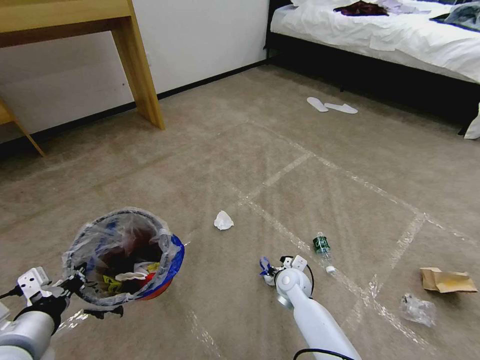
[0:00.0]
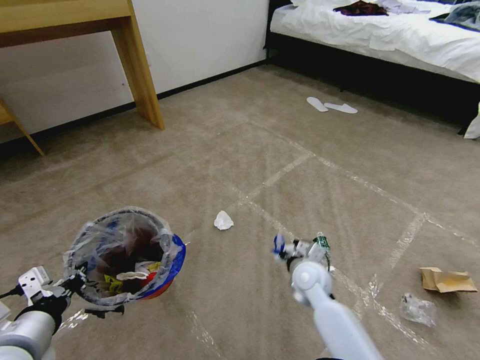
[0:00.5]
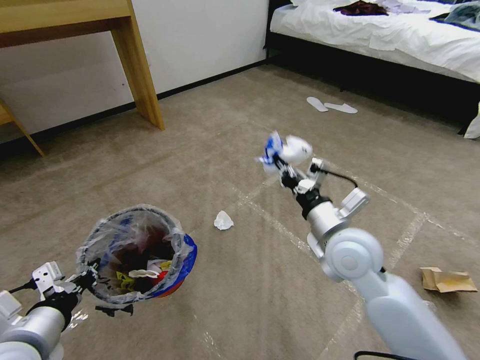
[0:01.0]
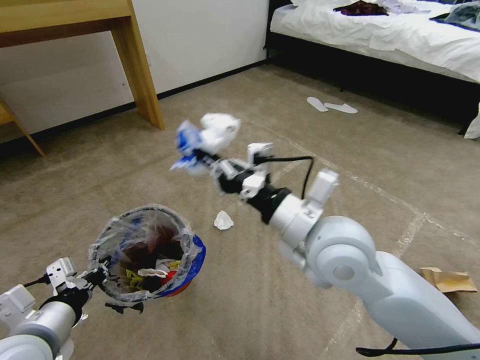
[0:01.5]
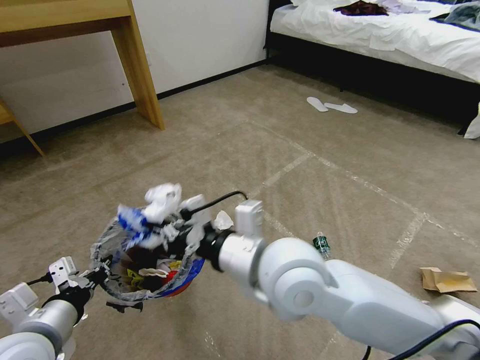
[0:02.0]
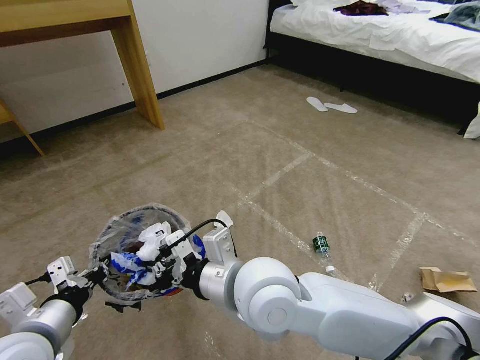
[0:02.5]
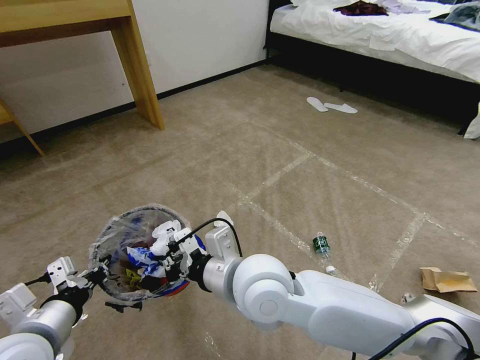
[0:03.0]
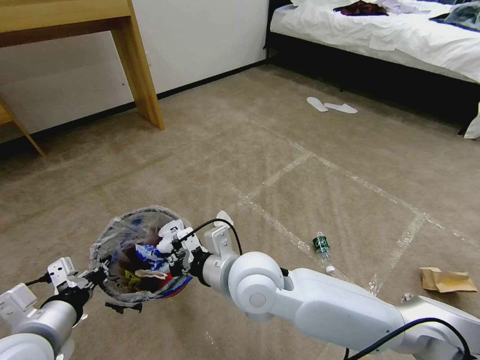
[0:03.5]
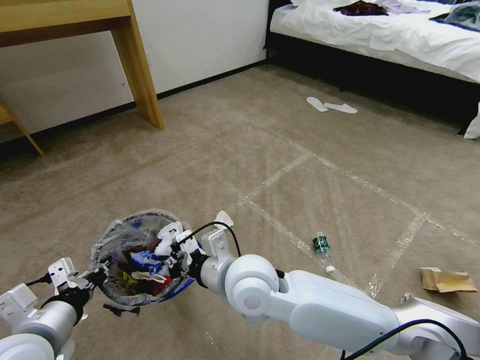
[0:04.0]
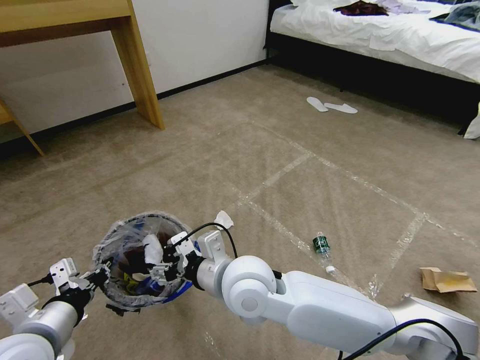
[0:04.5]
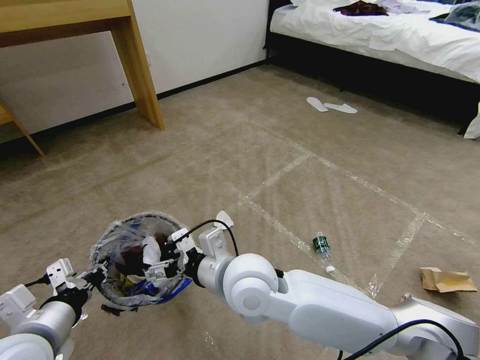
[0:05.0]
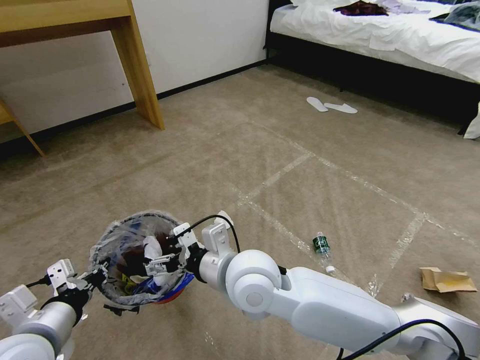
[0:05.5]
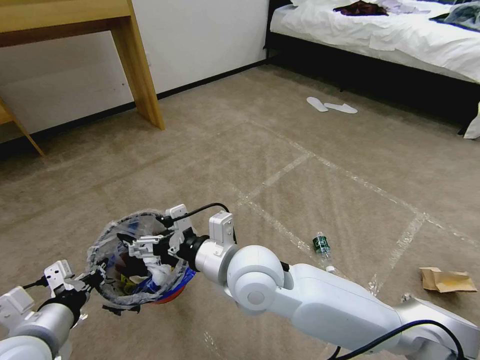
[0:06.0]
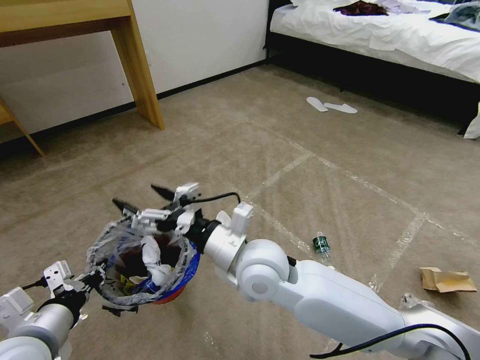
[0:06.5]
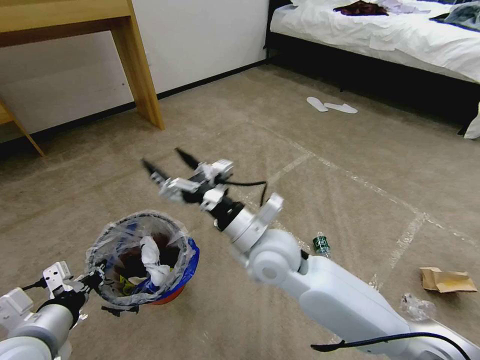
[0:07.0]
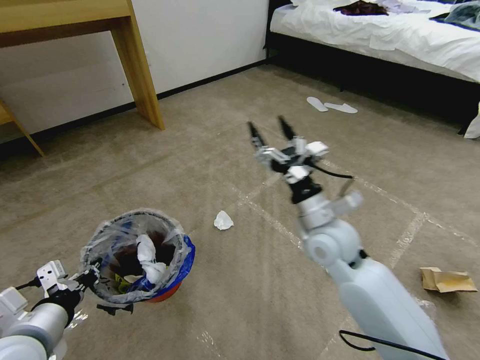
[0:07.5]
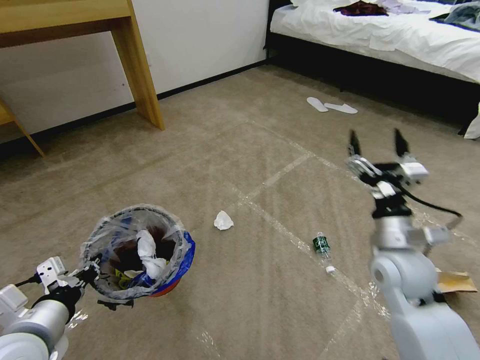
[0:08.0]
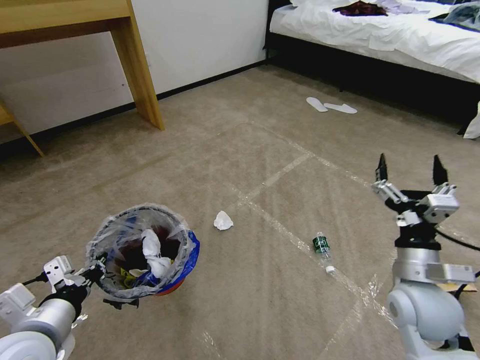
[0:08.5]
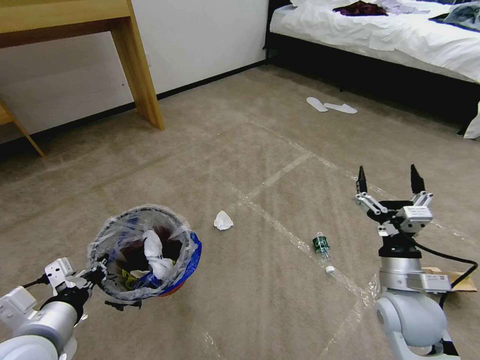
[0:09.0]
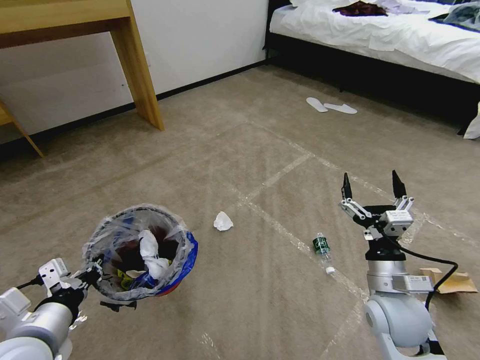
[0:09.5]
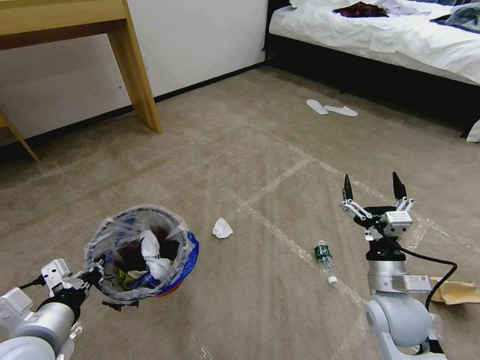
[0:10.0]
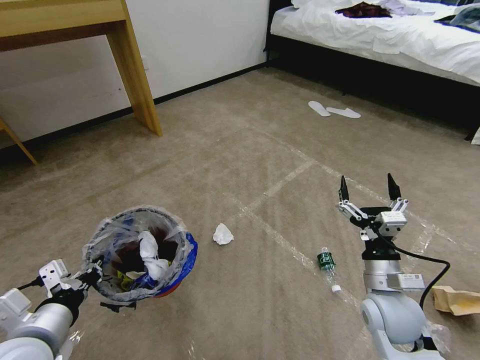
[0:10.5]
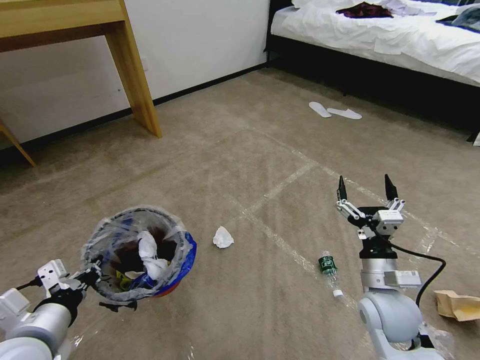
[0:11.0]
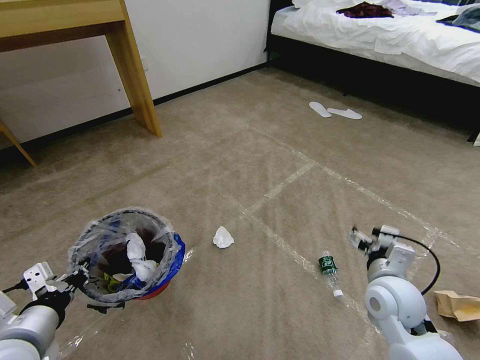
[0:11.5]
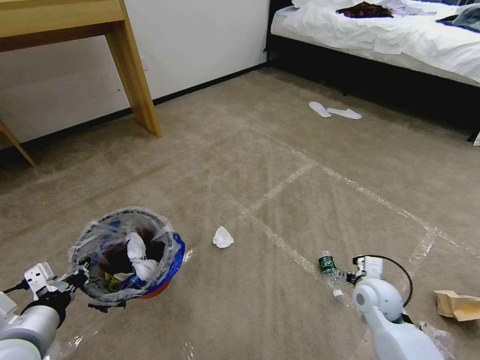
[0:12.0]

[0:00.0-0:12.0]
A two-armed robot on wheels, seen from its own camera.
Task of the whole recording: Pick up the trash bin and place the garbage on the floor into it.
0:00.0 to 0:02.0: The right gripper is displaced upward by about 35 cm.
0:02.0 to 0:04.0: The right gripper moves downward, roughly 10 cm.
0:04.0 to 0:06.0: The right gripper opens up.
0:06.0 to 0:08.0: The right gripper moves to the right, approximately 30 cm.
0:08.0 to 0:10.0: The right gripper shifts about 10 cm backward and downward.
0:10.0 to 0:12.0: The right gripper heads downward and forward, covering about 10 cm.

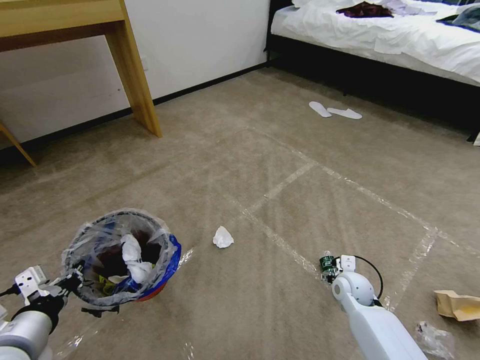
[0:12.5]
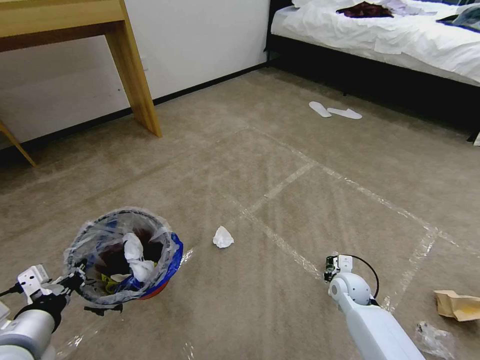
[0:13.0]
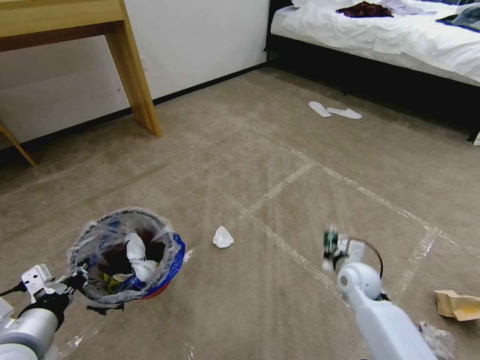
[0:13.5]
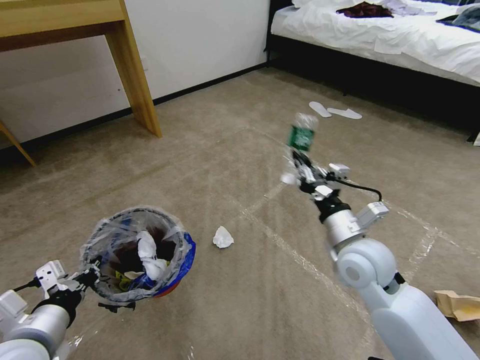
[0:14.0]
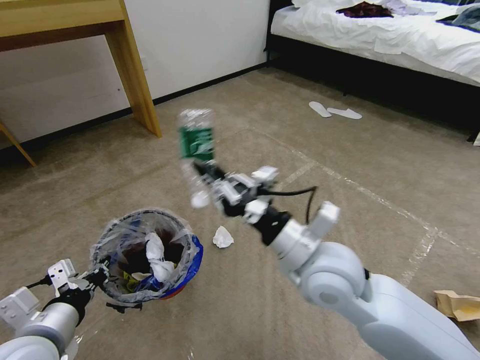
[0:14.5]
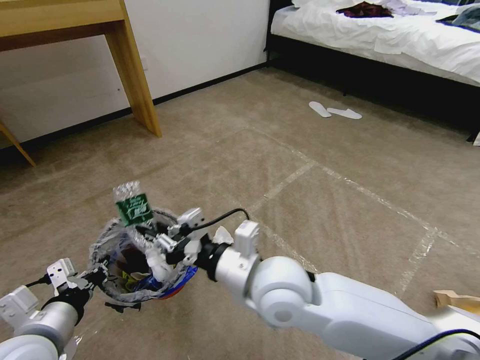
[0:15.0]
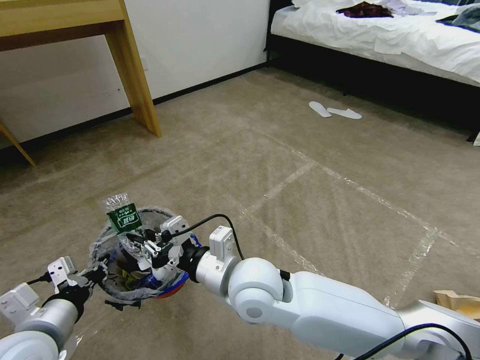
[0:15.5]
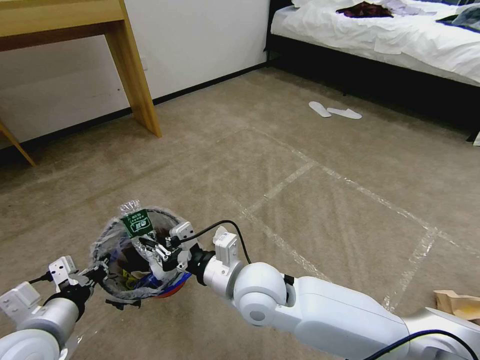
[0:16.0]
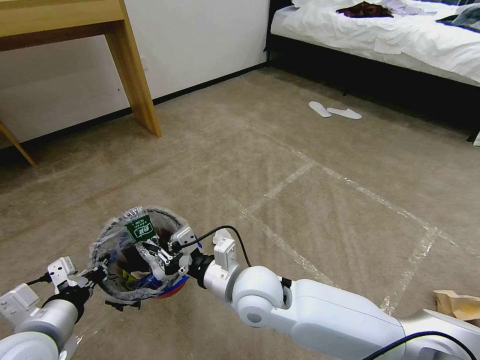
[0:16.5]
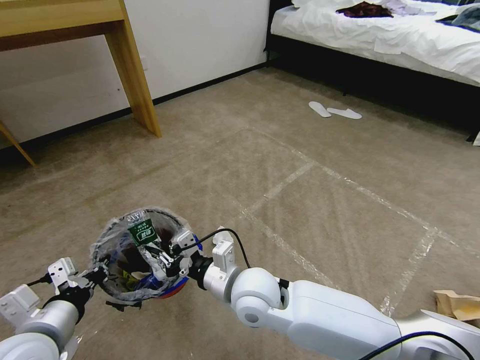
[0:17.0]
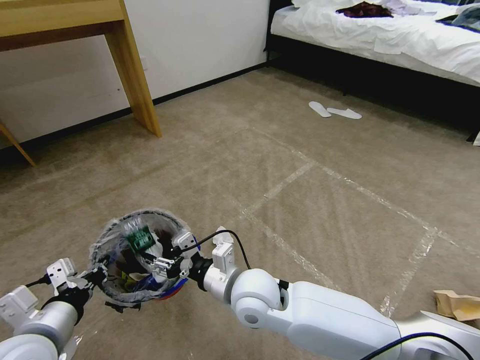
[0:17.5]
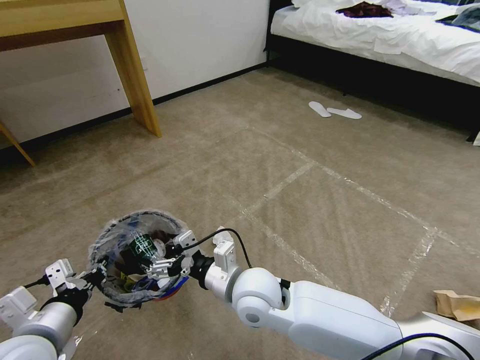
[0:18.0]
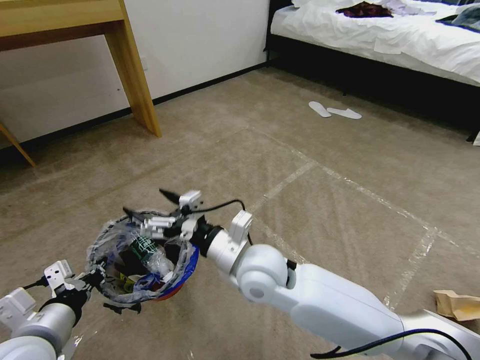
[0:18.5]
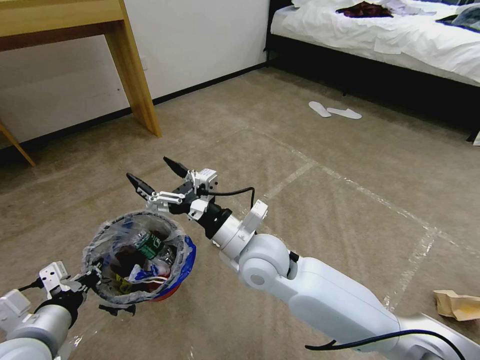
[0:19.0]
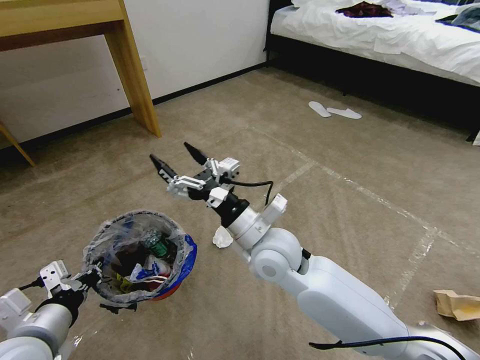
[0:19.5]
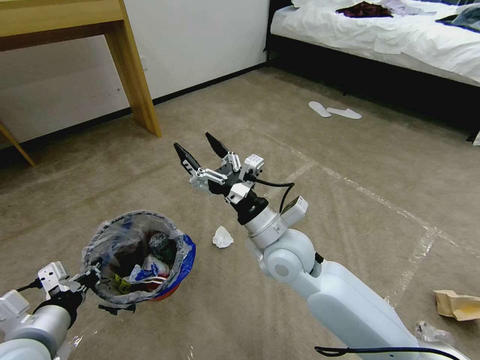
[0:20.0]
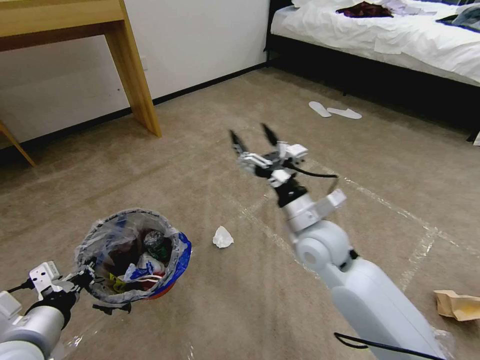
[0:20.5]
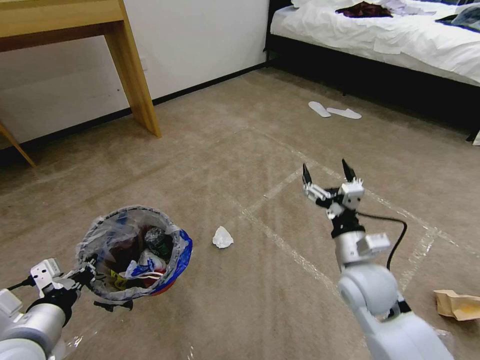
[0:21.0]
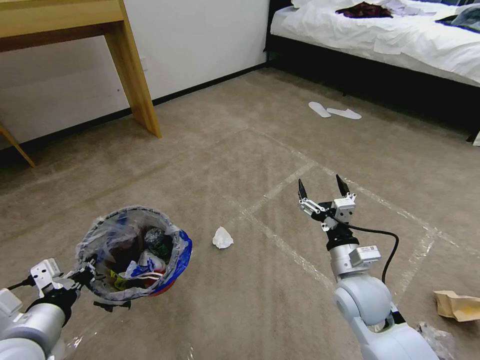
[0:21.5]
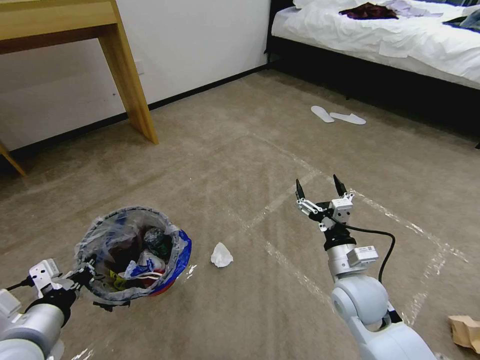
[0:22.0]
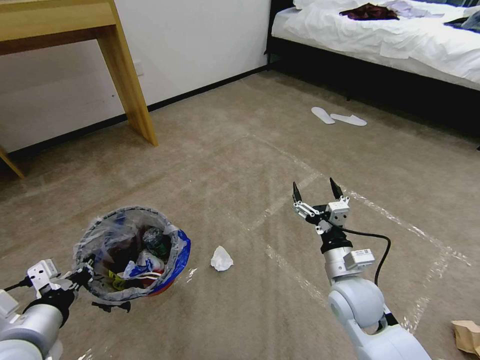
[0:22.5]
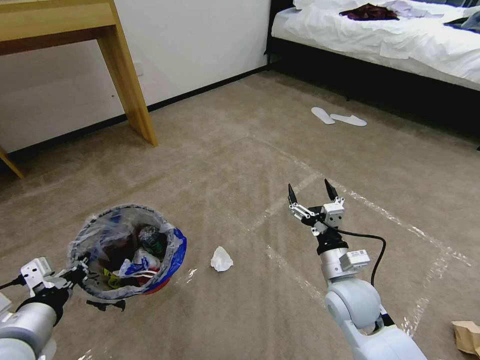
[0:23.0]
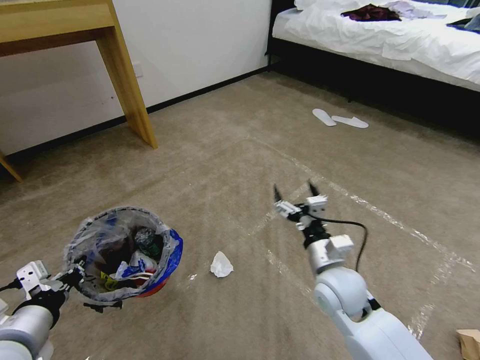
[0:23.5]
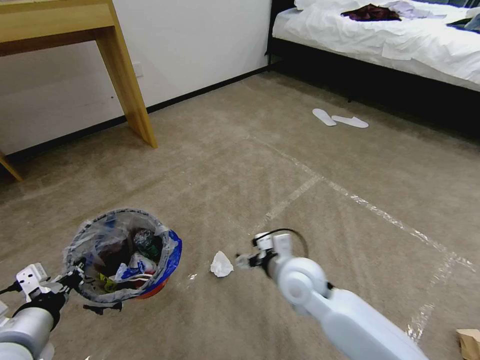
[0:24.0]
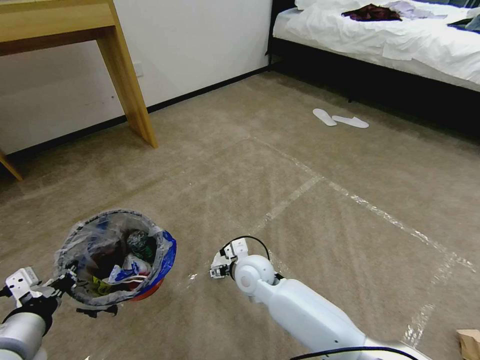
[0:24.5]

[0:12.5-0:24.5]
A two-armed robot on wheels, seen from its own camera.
Task of the whole recording: Pick up the trash bin and place the garbage on the floor into it.
0:12.5 to 0:14.5: The right gripper heads upward and to the left, covering roughly 30 cm, and closes its fingers.
0:14.5 to 0:16.5: The right gripper moves to the left and downward, some 15 cm.
0:16.5 to 0:18.5: The right gripper opens up.
0:18.5 to 0:20.5: The right gripper shifts roughly 15 cm to the right and forward.
0:20.5 to 0:22.5: The right gripper is displaced downward, backward and to the right by some 15 cm.
0:22.5 to 0:24.5: The right gripper goes approximately 20 cm to the left and forward.

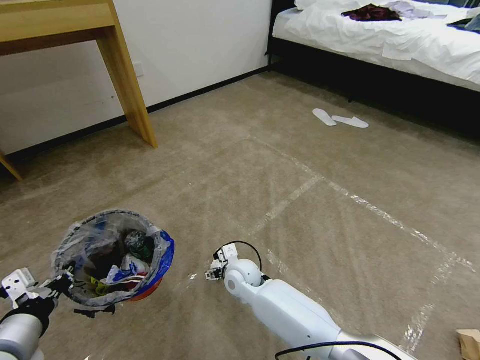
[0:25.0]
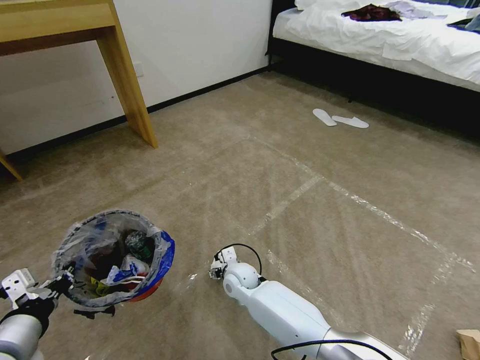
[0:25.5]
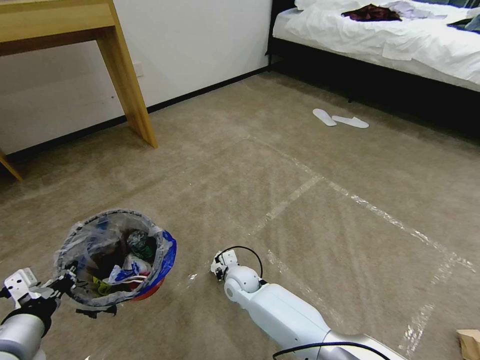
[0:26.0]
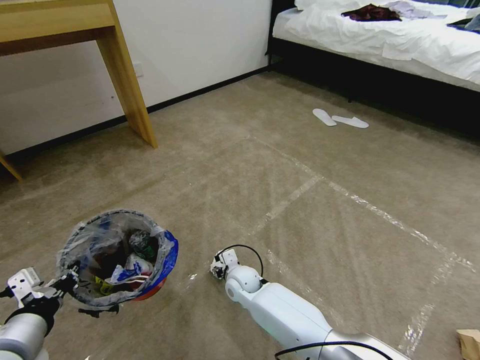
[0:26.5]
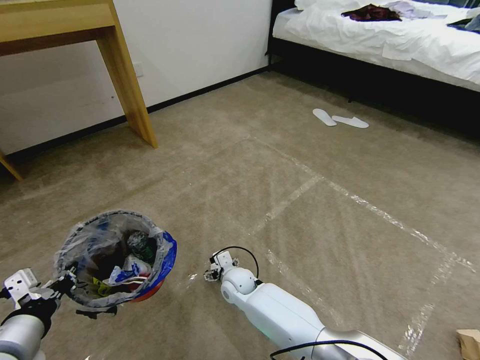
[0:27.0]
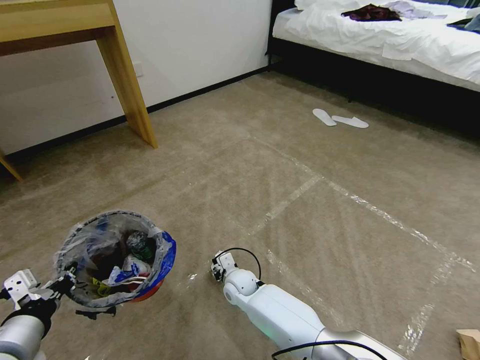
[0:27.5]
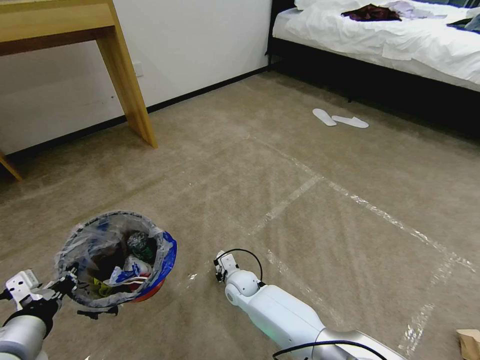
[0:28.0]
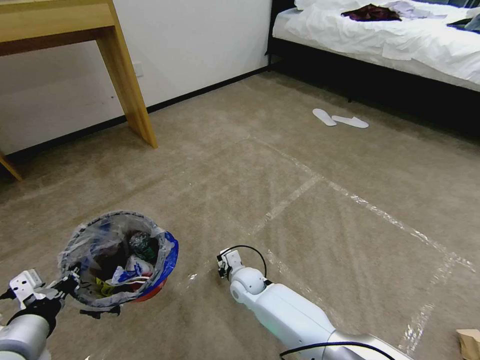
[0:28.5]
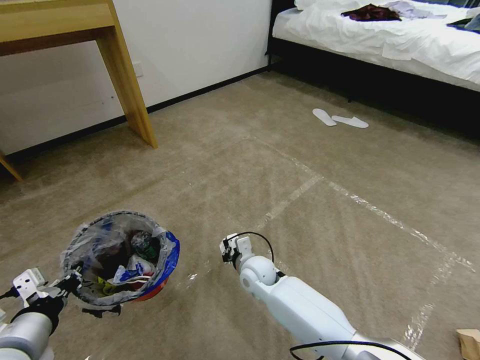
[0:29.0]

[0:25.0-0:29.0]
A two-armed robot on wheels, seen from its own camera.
Task of the whole recording: Pick up the trash bin and place the garbage on the floor into it.
0:25.0 to 0:27.0: The right gripper shifts some 5 cm downward, and closes, then opens again.
0:27.0 to 0:29.0: The right gripper heads upward and to the right, covering roughly 5 cm, and closes up.
